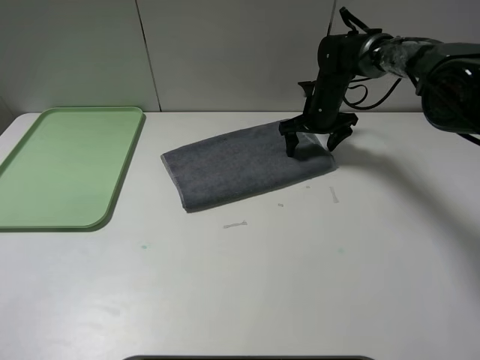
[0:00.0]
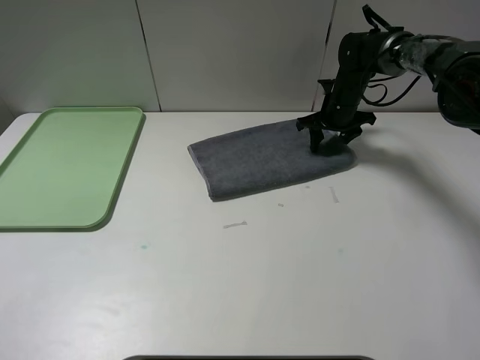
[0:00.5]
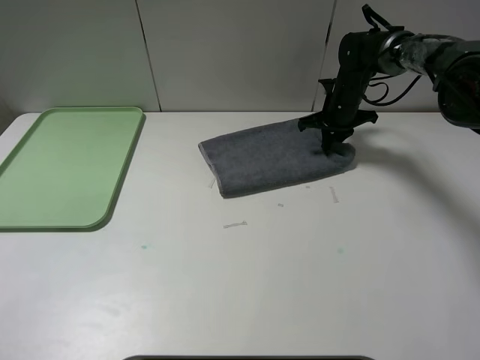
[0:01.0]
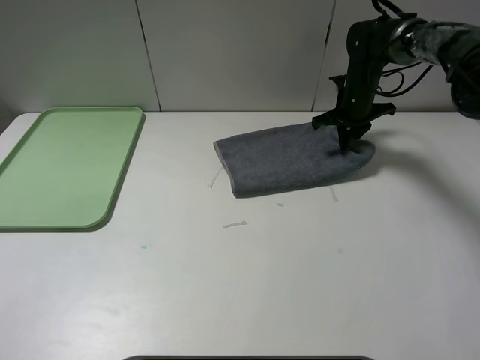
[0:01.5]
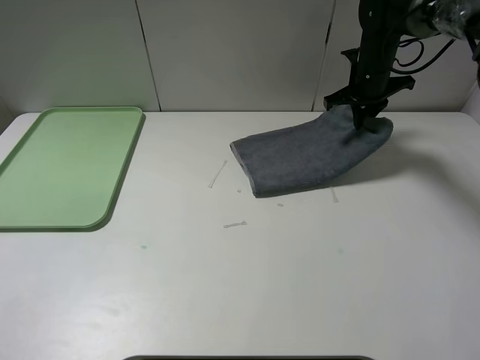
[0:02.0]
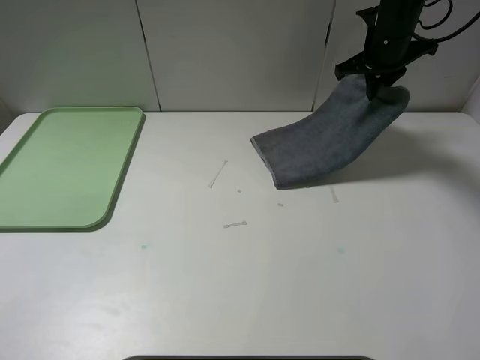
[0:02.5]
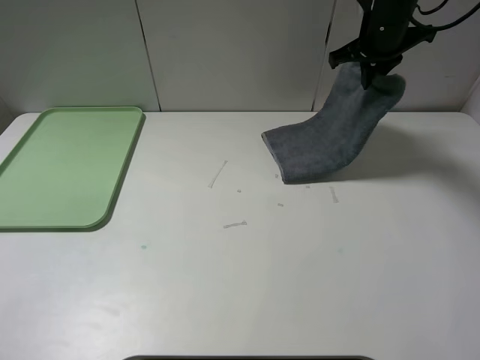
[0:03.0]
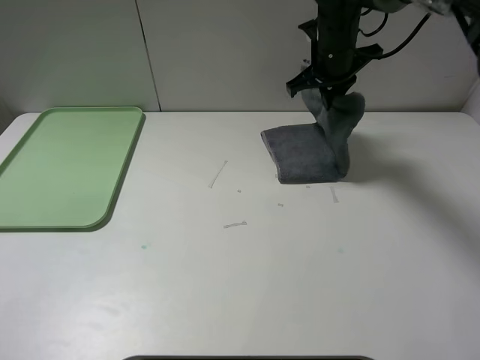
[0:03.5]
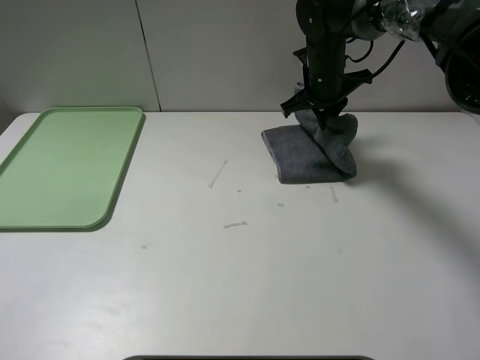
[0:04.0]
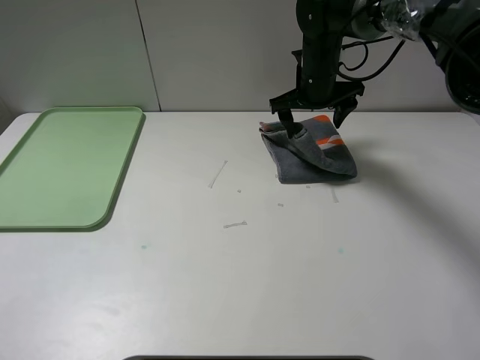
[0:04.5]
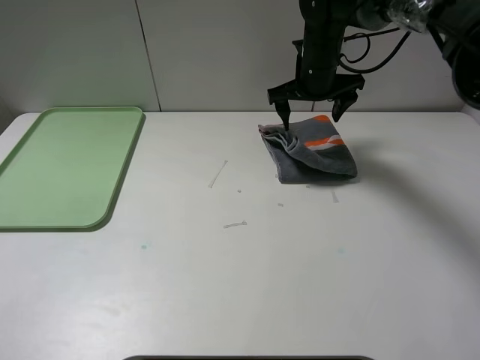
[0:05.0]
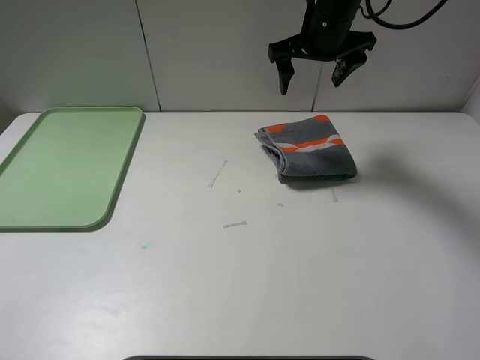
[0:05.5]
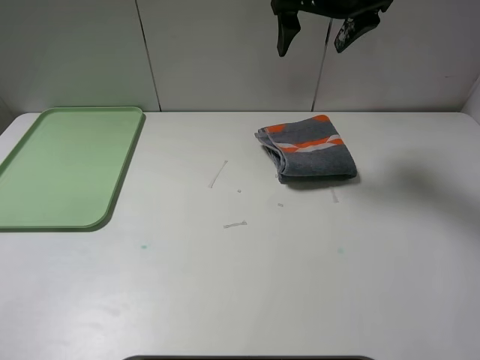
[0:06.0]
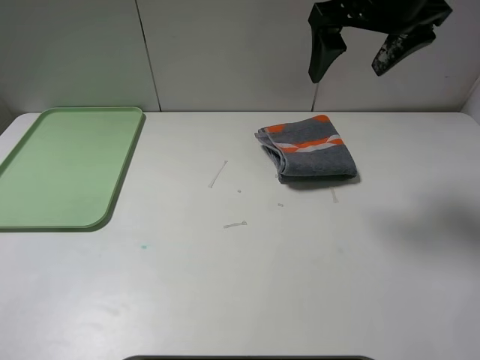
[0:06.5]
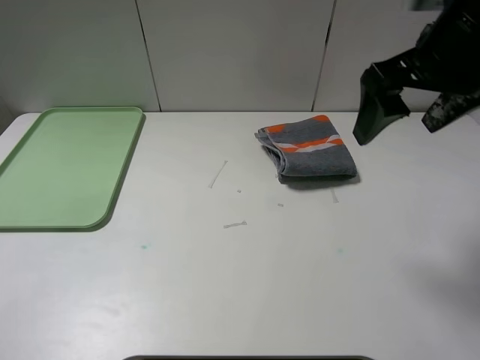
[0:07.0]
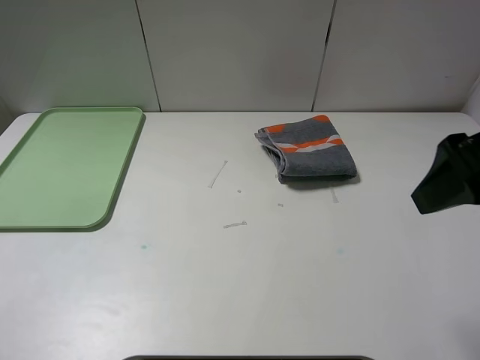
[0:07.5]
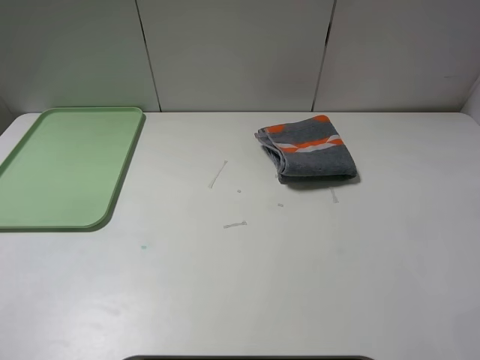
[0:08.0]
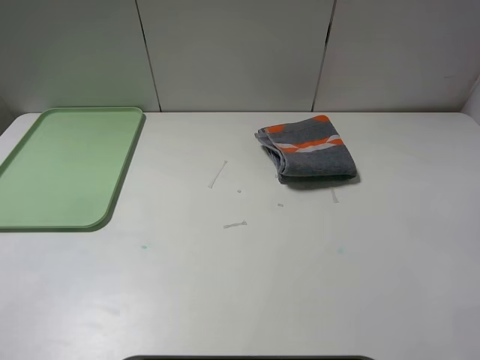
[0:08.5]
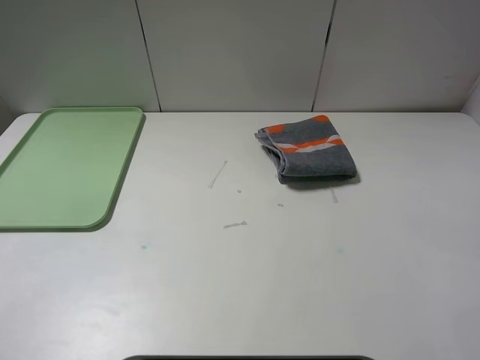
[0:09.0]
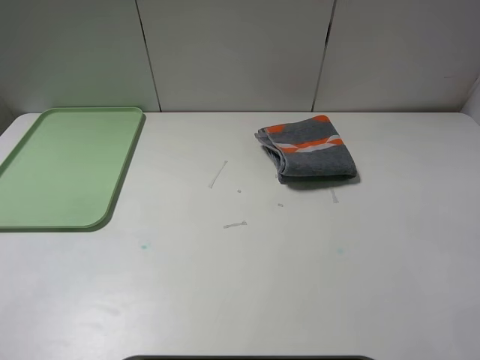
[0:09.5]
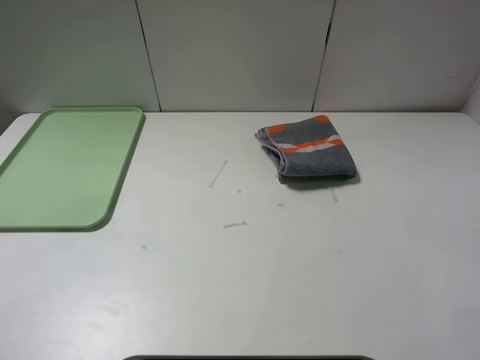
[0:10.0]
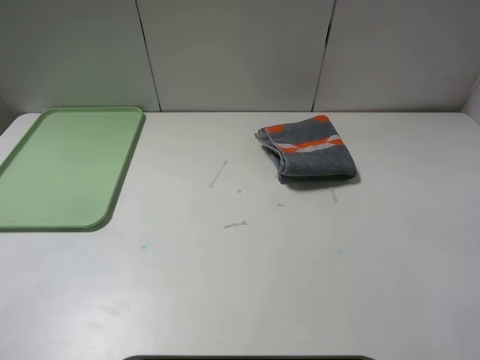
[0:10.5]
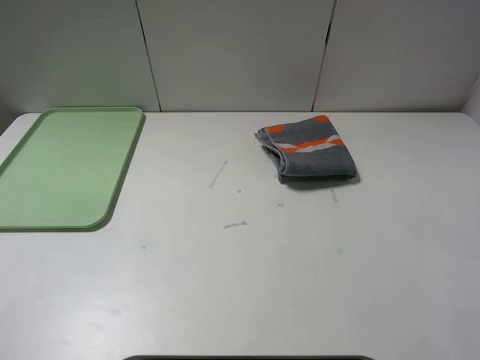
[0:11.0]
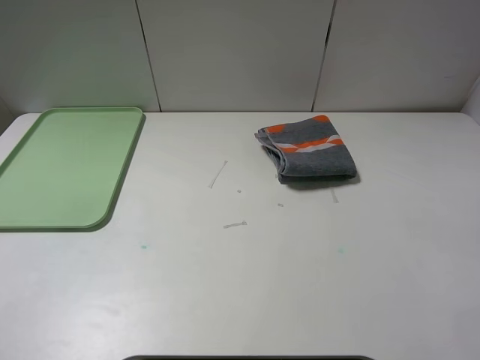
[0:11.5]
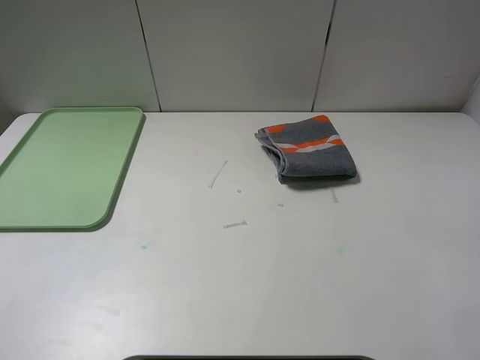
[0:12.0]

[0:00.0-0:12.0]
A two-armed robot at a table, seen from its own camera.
Step, 0:00.0 to 0:05.0: Fold the grey towel from right to left with right gripper.
0:00.0 to 0:02.0: The right gripper is displaced upward and to the right by about 10 cm, and closes.
0:02.0 to 0:04.0: The right gripper travels to the left by roughly 10 cm.
0:04.0 to 0:06.0: The right gripper is displaced upward by about 15 cm, and opens up.
0:06.0 to 0:08.0: The right gripper travels backward and to the right by roughly 35 cm.
0:10.0 to 0:12.0: The two grippers keep their place.

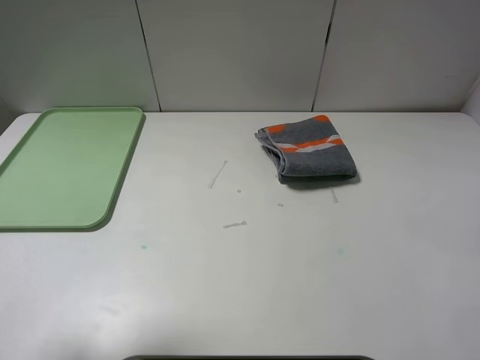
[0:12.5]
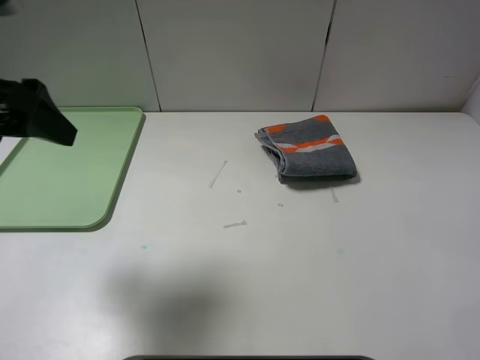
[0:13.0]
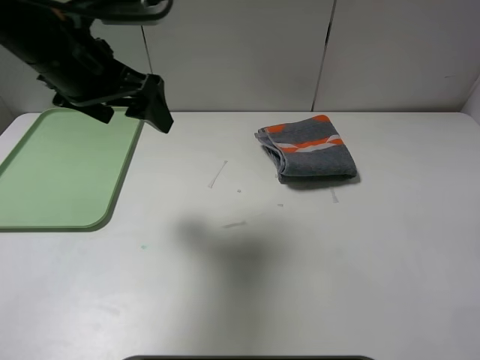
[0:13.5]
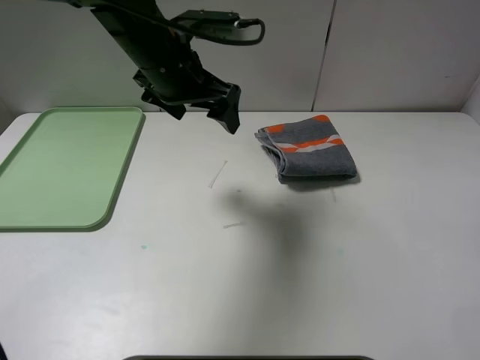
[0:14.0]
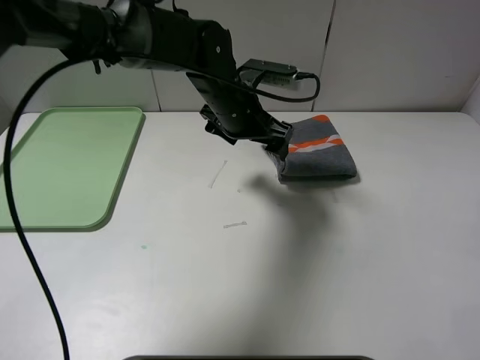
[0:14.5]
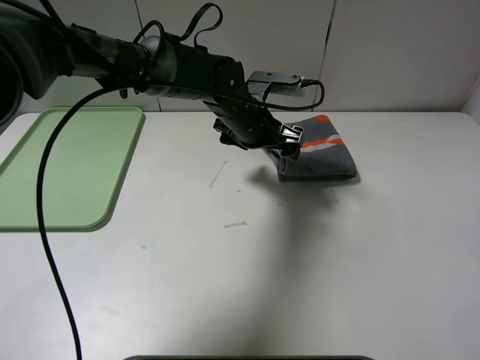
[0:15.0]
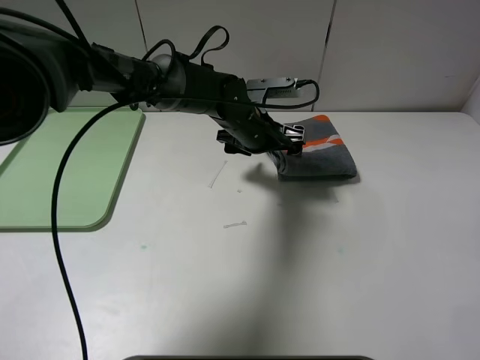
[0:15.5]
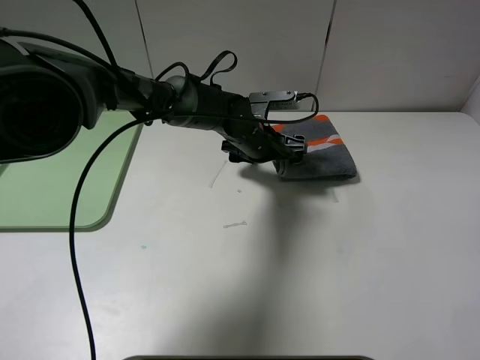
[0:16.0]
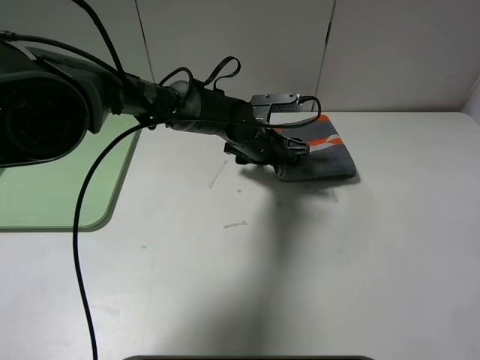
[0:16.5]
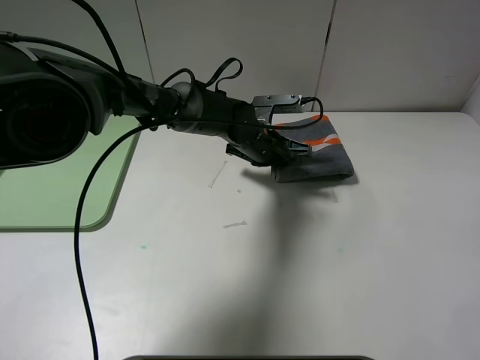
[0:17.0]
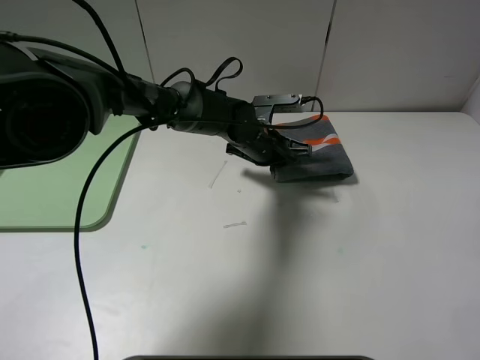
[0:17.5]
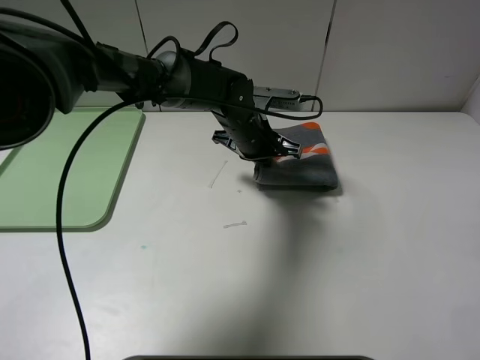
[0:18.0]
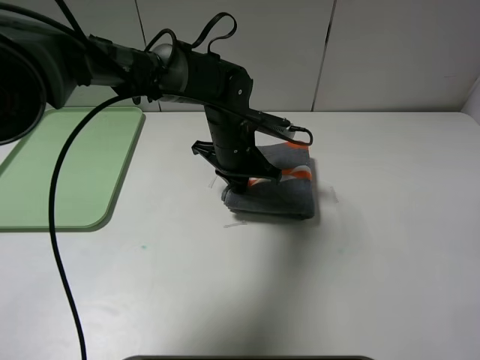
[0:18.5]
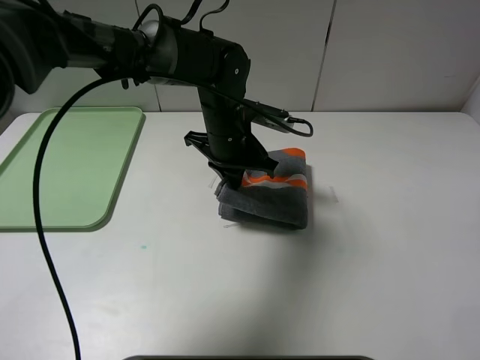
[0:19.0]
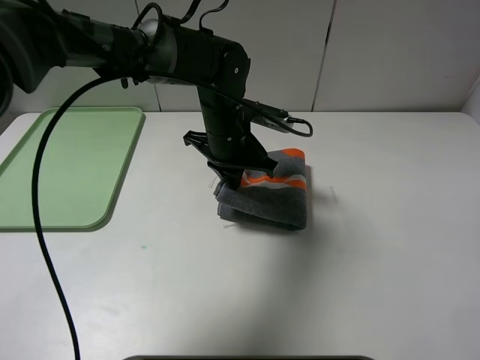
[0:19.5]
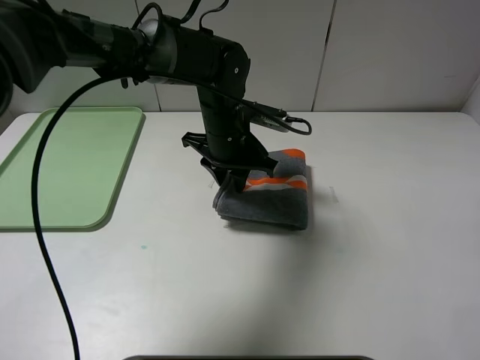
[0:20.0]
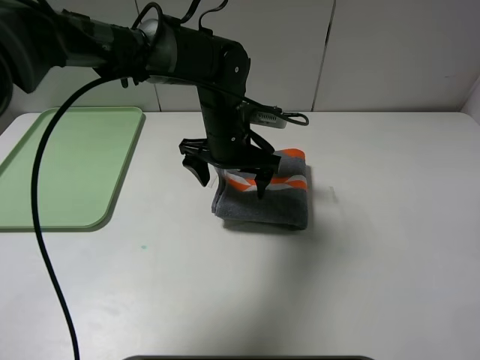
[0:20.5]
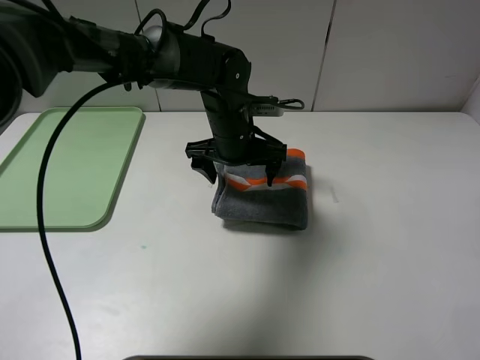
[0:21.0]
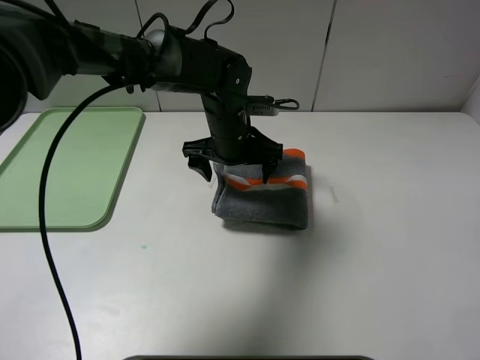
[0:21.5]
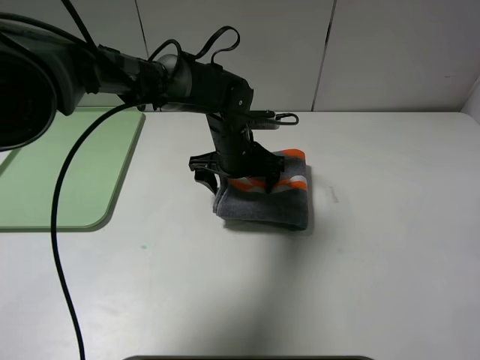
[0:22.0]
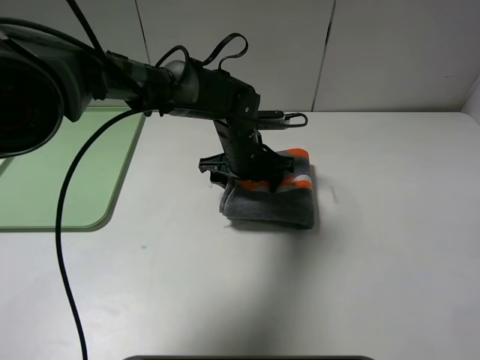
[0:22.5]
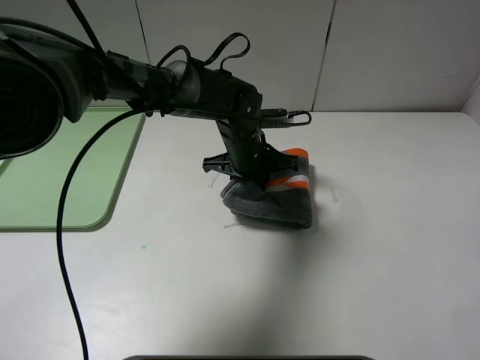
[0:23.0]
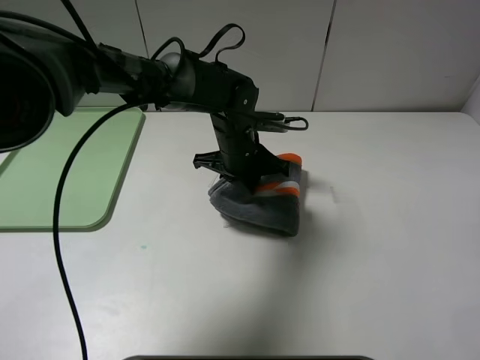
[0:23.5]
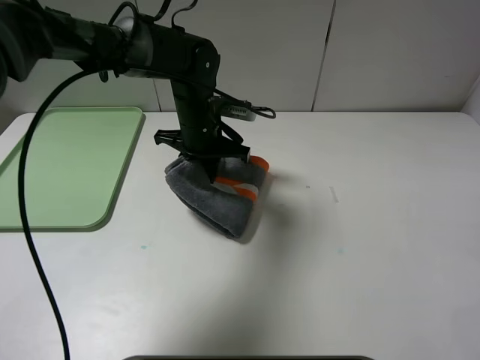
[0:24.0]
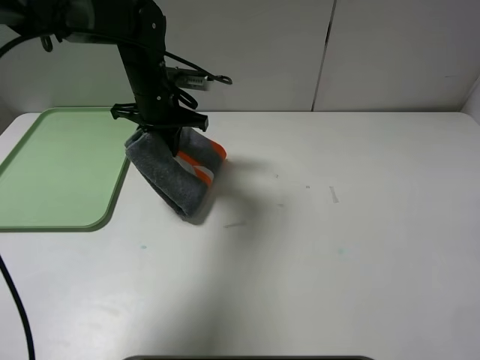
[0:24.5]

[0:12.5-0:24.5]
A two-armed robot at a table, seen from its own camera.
0:12.5 to 0:14.5: The left gripper goes some 40 cm to the right, forward and downward.
0:14.5 to 0:16.5: The left gripper heads downward, covering some 10 cm.
0:16.5 to 0:18.5: The left gripper changes place by roughly 5 cm, and closes up.
0:18.5 to 0:20.5: The left gripper opens its fingers.
0:20.5 to 0:22.5: The grippers make only small movements.
0:22.5 to 0:24.5: The left gripper goes approximately 15 cm to the left and upward, and closes up.

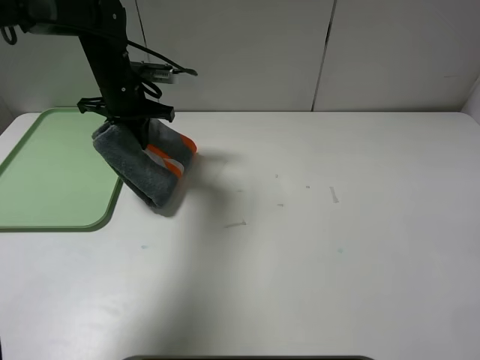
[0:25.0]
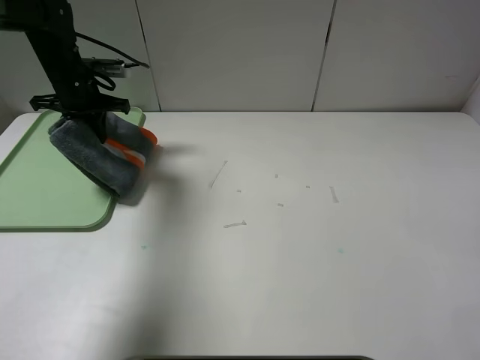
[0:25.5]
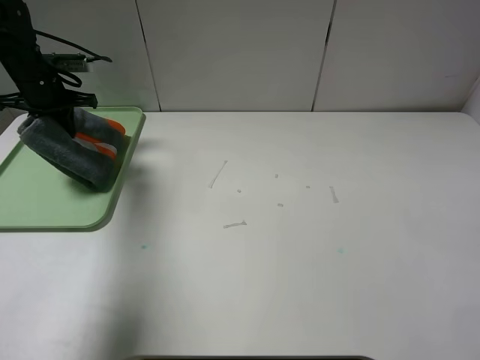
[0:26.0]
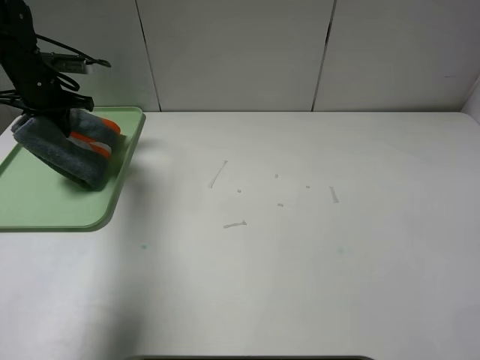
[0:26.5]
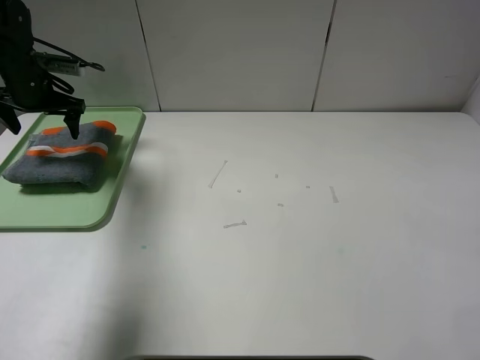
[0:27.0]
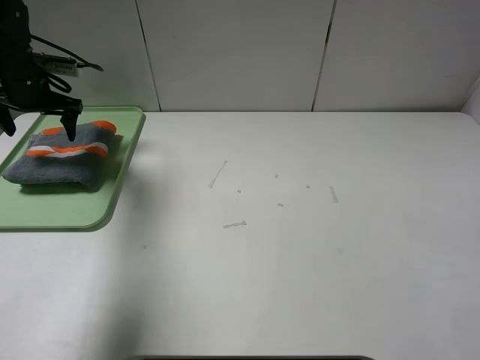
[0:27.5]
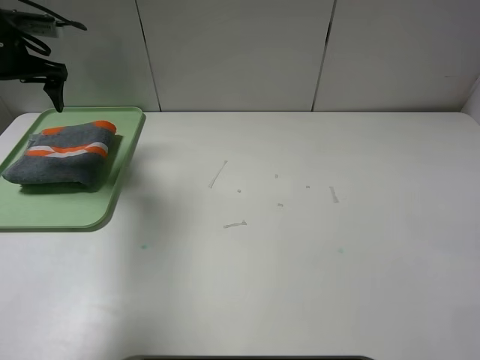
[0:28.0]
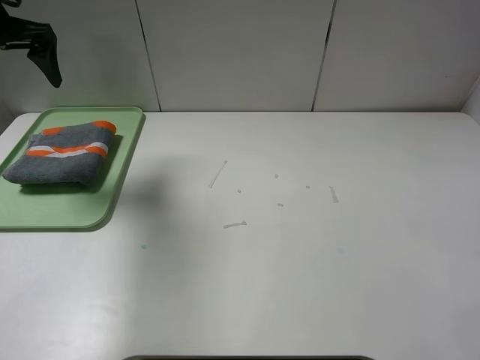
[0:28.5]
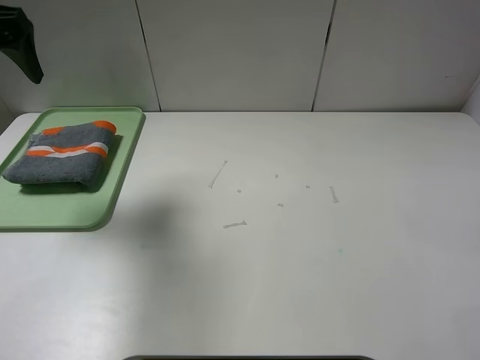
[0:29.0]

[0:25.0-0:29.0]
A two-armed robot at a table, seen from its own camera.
Step, 0:25.0 to 0:27.0: Place the folded grey towel on the tray with the left gripper.
0:25.0 to 0:27.0: The left gripper moves to the left, approximately 15 cm, and opens.
0:27.0 to 0:29.0: The left gripper is displaced upward and backward by some 20 cm.
